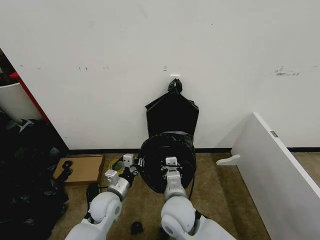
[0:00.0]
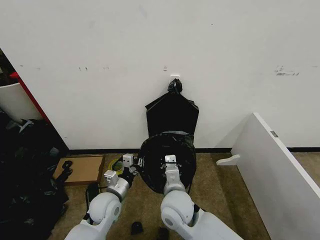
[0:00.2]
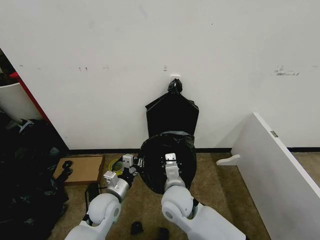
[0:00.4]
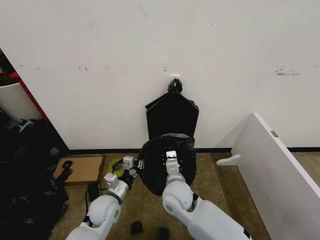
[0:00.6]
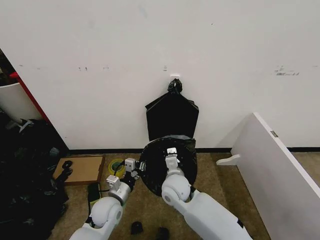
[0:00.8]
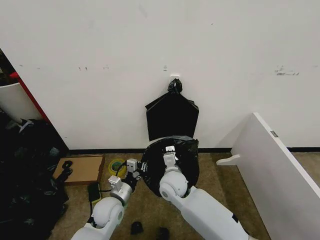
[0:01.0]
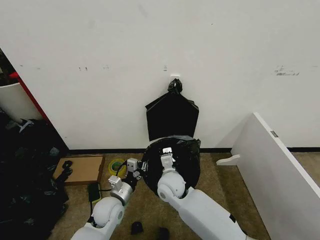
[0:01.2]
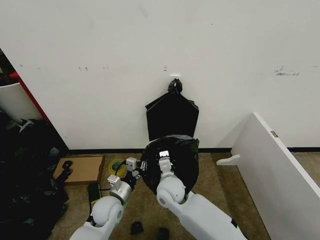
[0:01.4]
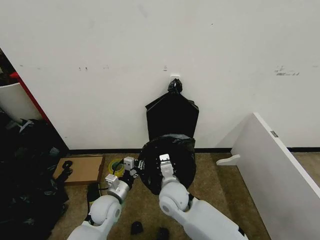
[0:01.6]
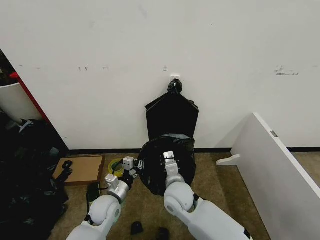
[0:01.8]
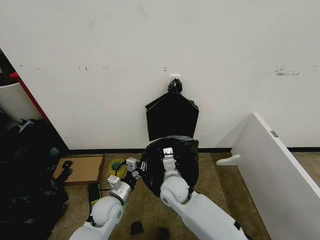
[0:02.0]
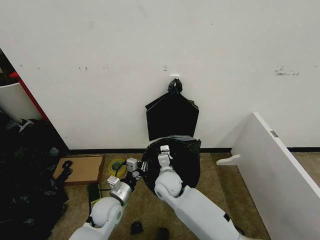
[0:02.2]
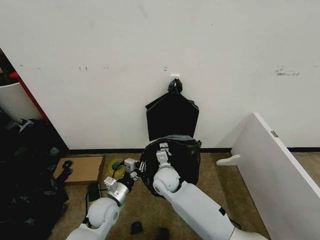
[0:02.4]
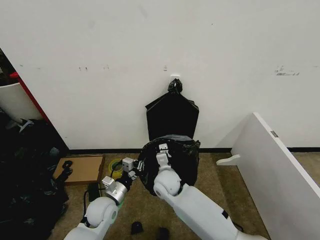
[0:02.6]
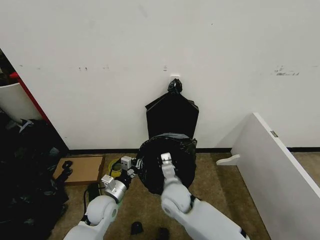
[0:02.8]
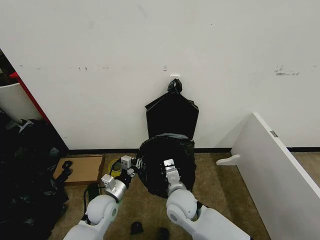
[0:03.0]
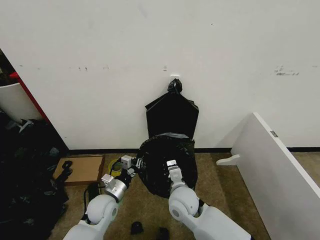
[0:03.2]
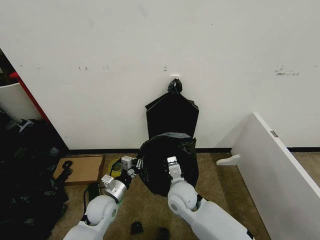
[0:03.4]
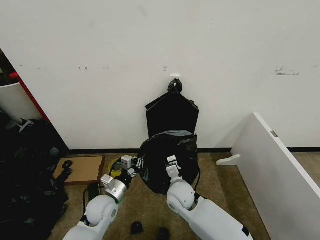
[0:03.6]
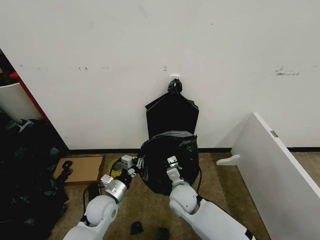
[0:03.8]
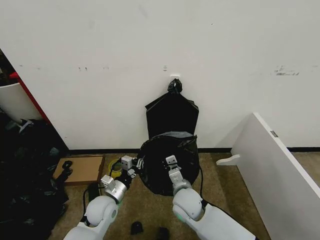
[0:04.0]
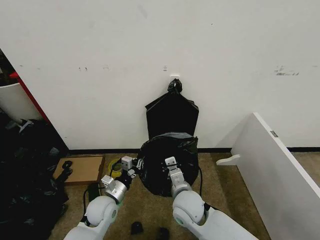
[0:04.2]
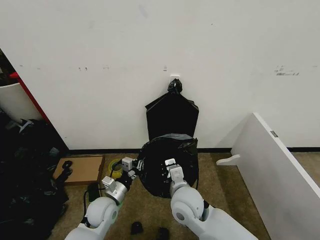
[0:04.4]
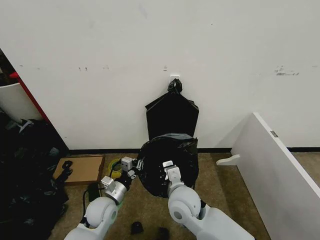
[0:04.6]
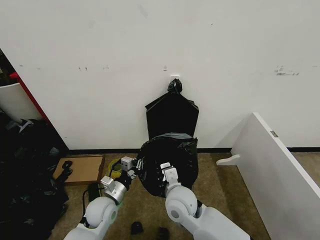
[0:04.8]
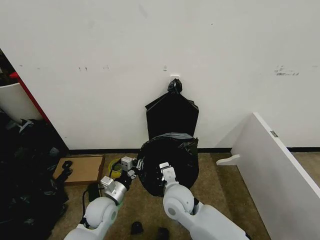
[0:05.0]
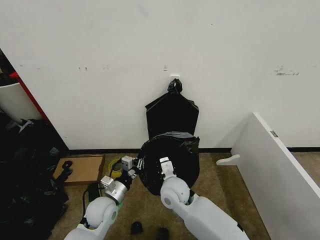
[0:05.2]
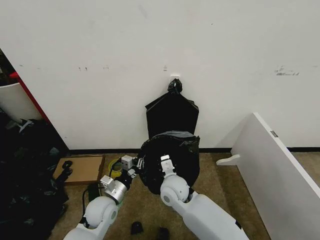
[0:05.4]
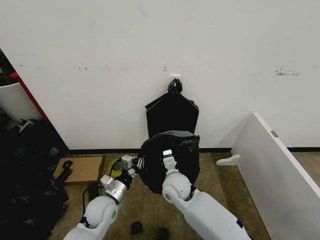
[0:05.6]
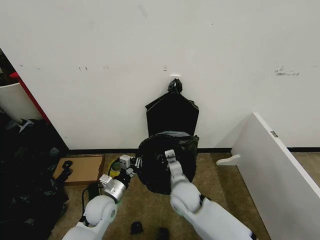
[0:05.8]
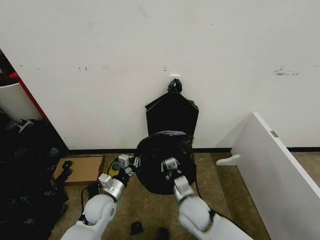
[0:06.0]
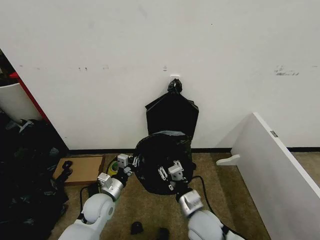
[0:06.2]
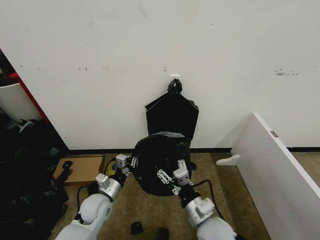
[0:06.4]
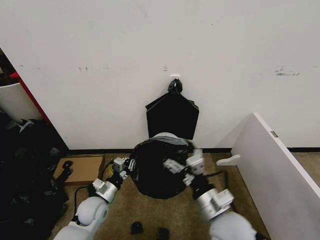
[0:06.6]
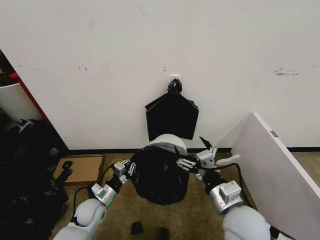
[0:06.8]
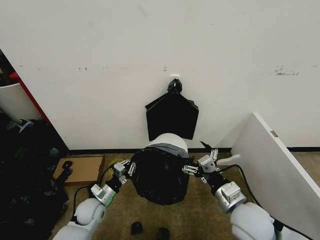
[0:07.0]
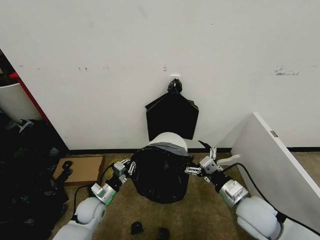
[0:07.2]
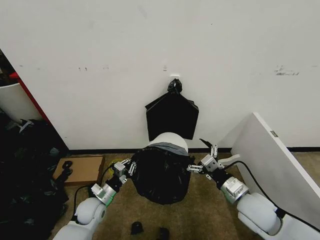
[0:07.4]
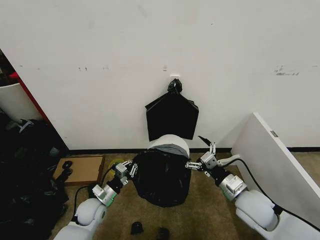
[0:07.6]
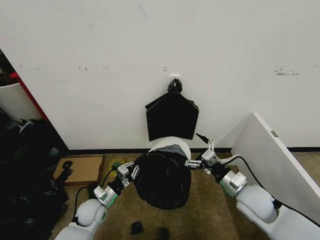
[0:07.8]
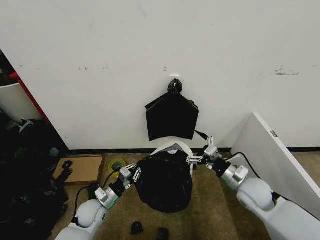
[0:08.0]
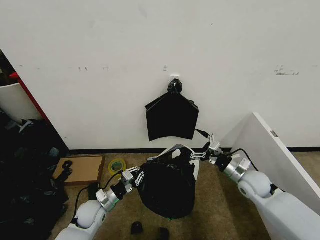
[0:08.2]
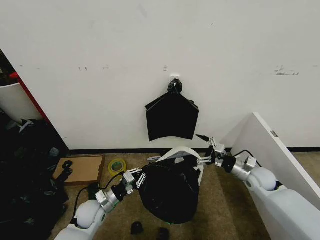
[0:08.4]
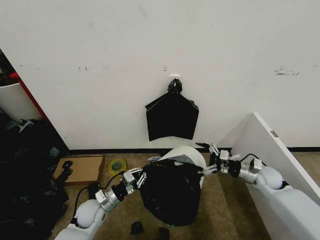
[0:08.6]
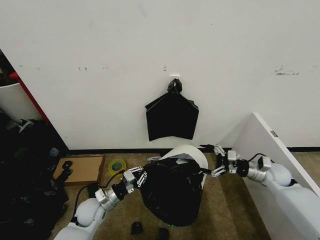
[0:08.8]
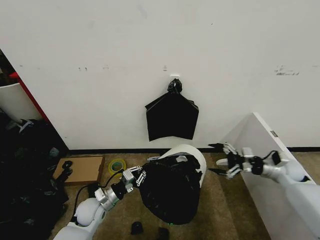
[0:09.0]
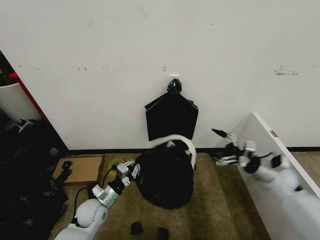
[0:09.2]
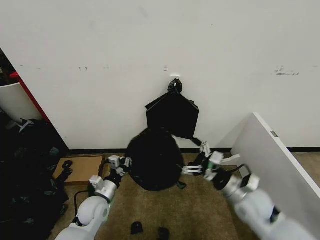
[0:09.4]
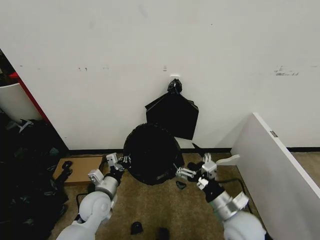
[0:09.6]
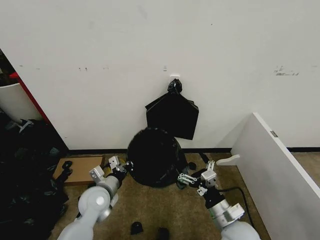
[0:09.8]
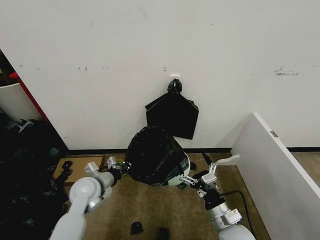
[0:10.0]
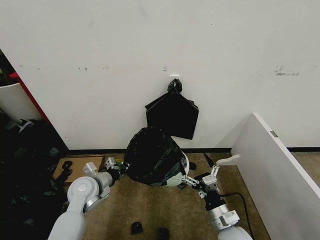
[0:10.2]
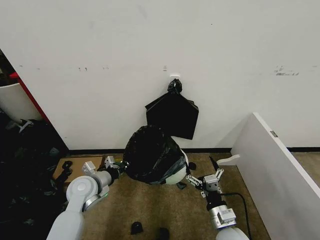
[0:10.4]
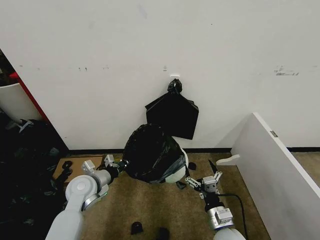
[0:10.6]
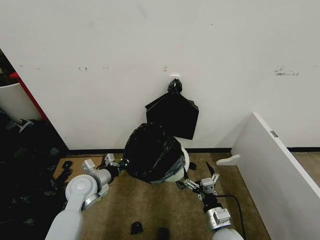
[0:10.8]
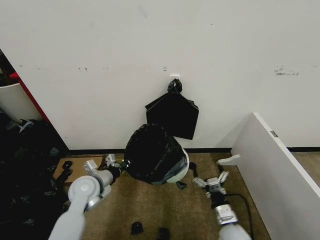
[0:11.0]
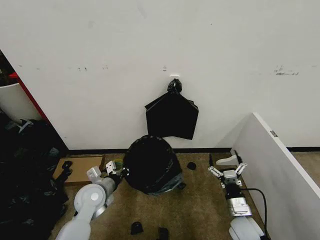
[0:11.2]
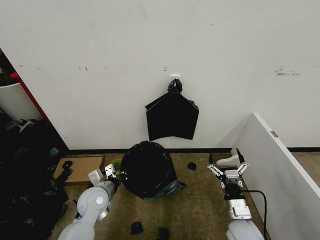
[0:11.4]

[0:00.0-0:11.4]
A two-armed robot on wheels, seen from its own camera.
Task of the whole recording: Place the garbage bag over the trash bin.
0:00.0 to 0:01.4: The right gripper shifts some 10 cm forward.
0:01.4 to 0:02.8: The right gripper travels forward and back again, some 5 cm each way.
0:02.8 to 0:04.2: The right gripper swings forward and backward, about 5 cm each way, with 2 reversals.
0:04.2 to 0:05.6: The right gripper travels forward by roughly 5 cm.
0:05.6 to 0:07.2: The right gripper heads to the right and backward, covering about 25 cm, and opens; the left gripper moves downward and to the left, roughly 10 cm.
0:07.2 to 0:08.6: The right gripper goes roughly 20 cm forward, to the right and downward.
0:08.6 to 0:10.0: The left gripper goes roughly 10 cm upward, while the right gripper moves backward and to the left, approximately 30 cm.
0:10.0 to 0:11.4: The left gripper moves about 5 cm.

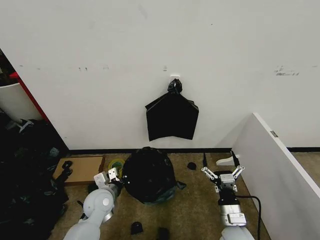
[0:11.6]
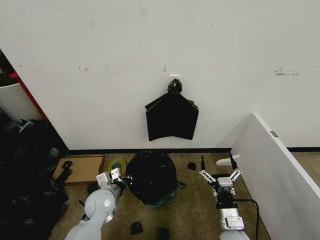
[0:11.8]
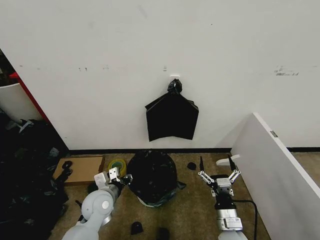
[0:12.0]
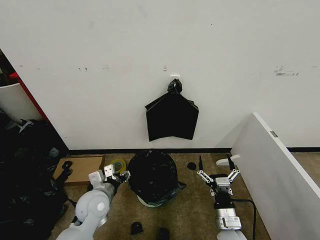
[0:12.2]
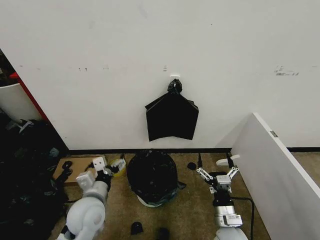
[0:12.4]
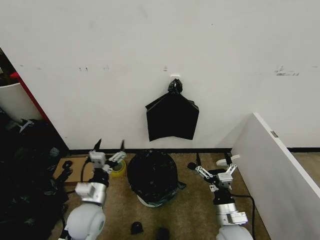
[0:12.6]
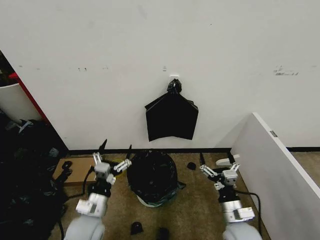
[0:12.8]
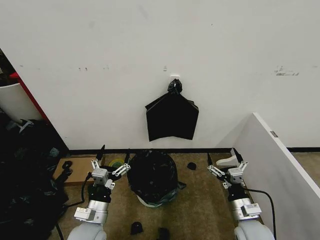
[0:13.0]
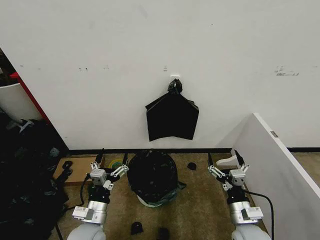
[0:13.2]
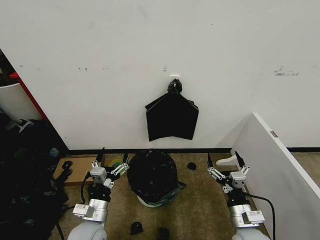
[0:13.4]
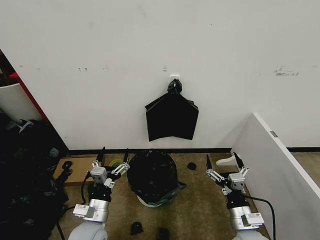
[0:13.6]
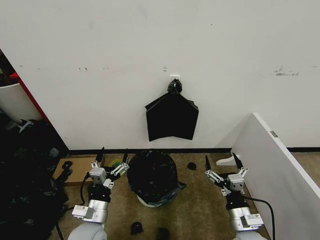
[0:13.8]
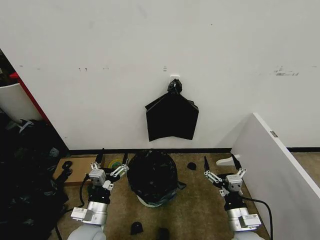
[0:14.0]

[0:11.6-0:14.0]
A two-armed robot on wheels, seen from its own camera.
Task of the whole recording: Place the garbage bag over the trash bin.
0:11.6 to 0:12.8: The left gripper heads backward, covering some 10 cm, and opens up.
0:12.8 to 0:14.0: The grippers make only small movements.

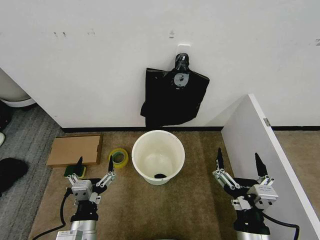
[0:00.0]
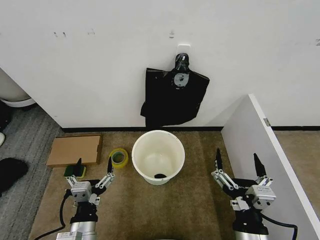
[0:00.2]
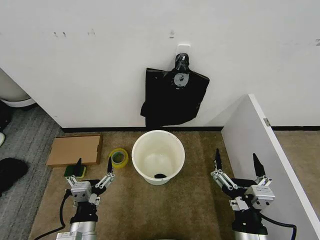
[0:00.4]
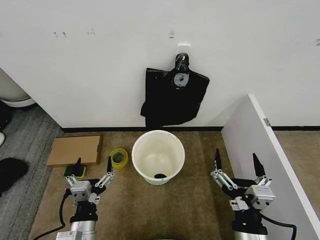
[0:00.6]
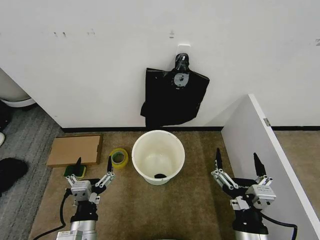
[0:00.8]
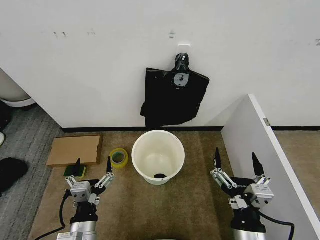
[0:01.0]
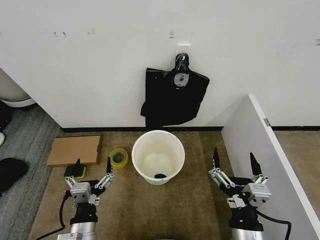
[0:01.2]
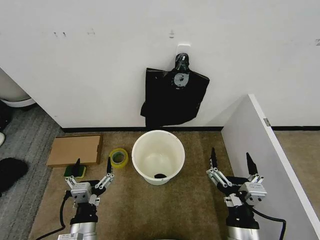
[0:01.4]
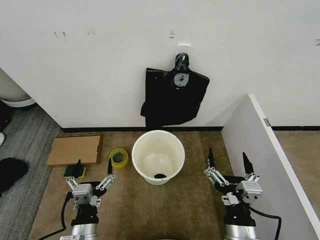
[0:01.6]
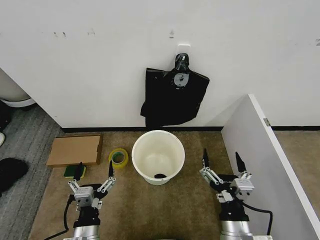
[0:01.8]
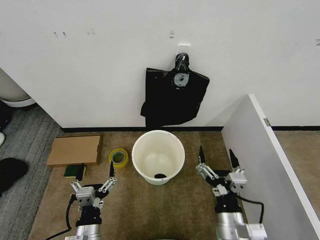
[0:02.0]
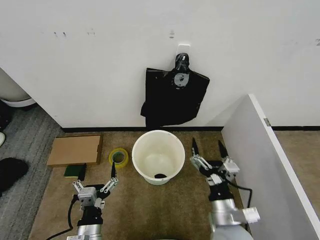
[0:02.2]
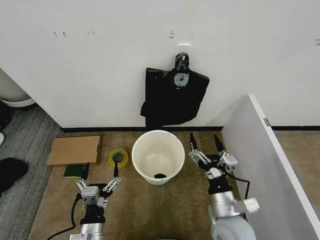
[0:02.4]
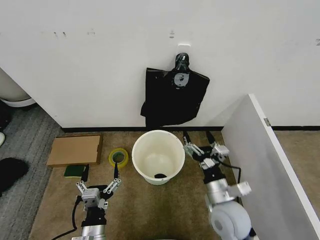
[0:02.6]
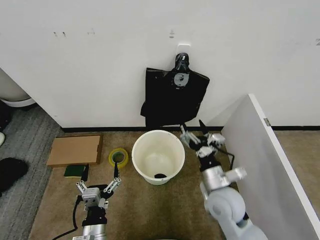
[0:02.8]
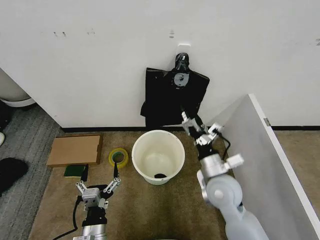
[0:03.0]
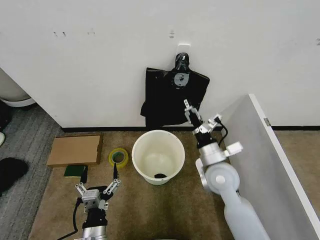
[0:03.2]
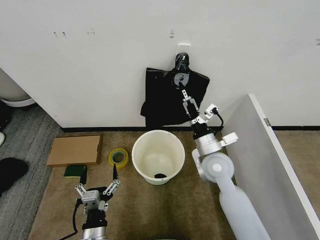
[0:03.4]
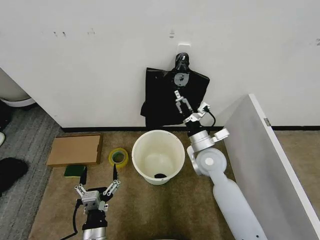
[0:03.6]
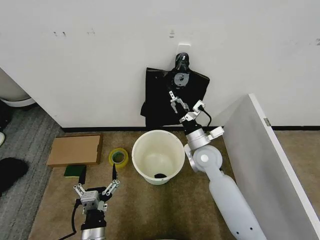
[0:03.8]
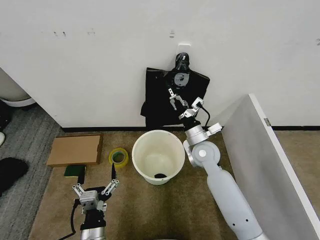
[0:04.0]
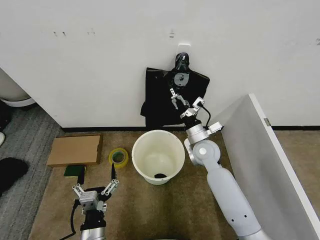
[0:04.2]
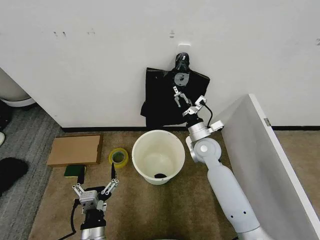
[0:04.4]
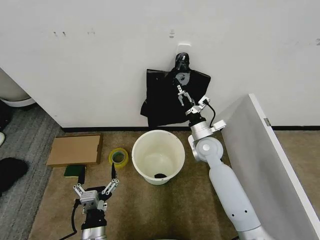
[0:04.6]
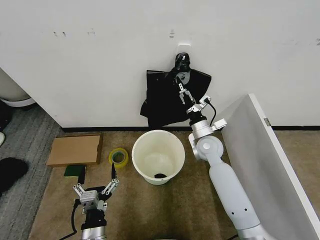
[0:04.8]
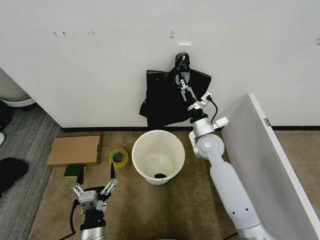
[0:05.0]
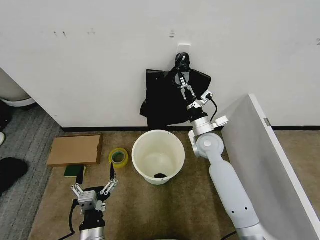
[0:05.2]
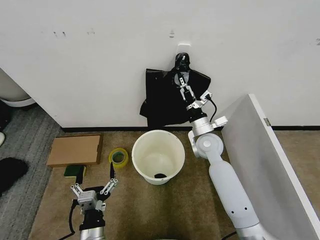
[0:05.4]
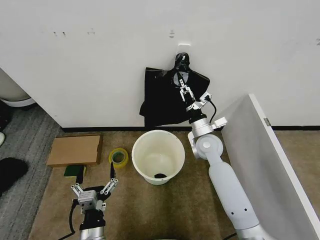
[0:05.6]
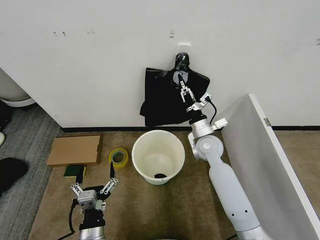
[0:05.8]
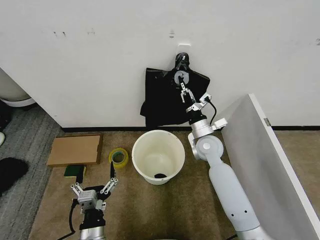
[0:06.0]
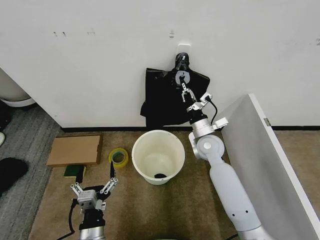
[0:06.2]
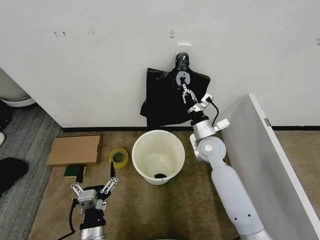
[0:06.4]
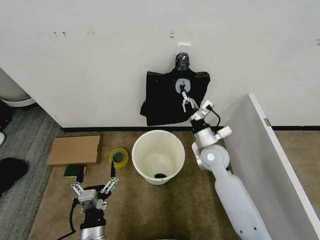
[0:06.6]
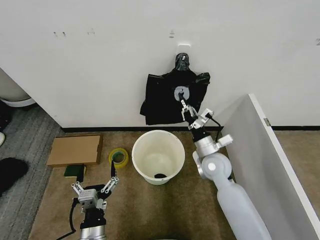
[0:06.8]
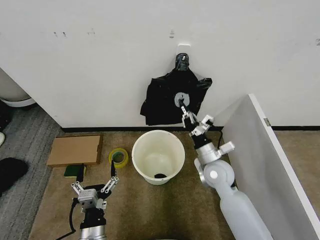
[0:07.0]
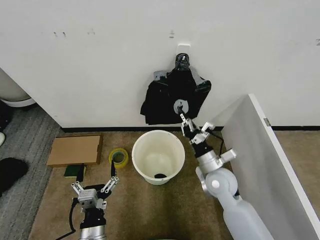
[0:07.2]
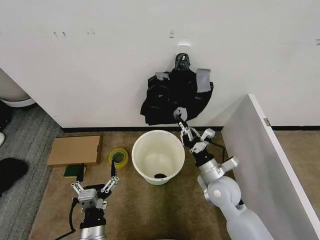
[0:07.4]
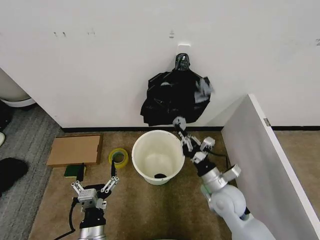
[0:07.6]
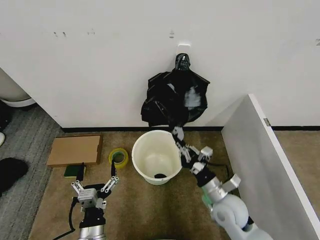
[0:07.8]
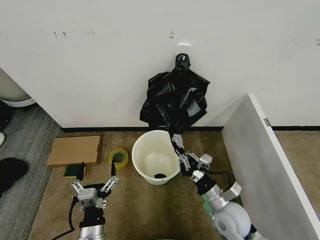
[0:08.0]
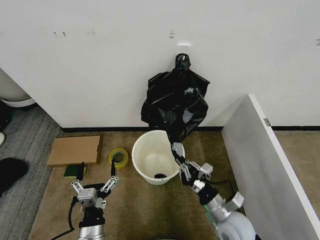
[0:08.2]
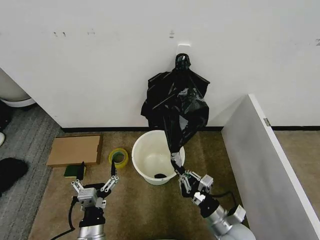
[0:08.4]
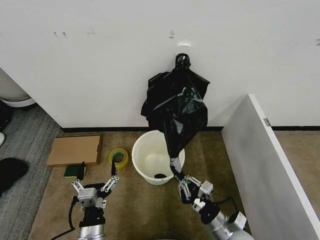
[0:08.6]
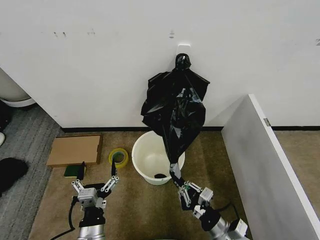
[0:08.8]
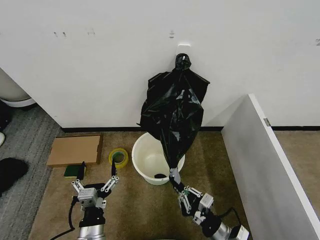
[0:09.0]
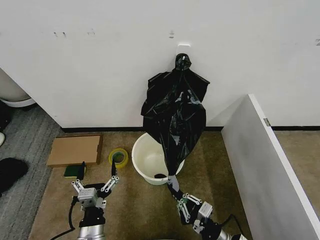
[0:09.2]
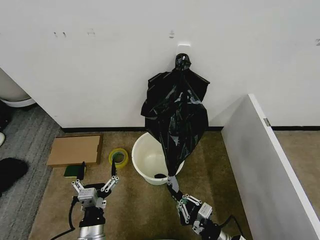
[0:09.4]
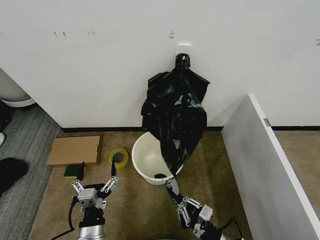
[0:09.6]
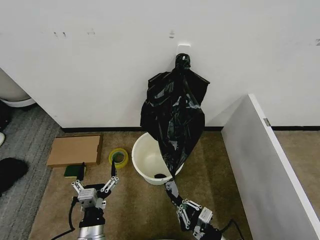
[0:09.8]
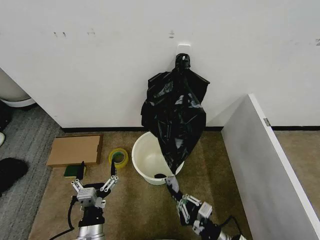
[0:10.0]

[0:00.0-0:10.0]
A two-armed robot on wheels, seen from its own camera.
Task of the whole recording: Place the garbage bag over the trash bin.
0:01.4 to 0:02.8: The right gripper moves forward, some 15 cm.
0:02.8 to 0:04.2: The right gripper travels forward by roughly 15 cm.
0:04.2 to 0:05.8: The right gripper closes.
0:05.8 to 0:07.2: The right gripper goes some 10 cm backward.
0:07.2 to 0:08.6: The right gripper travels backward and downward by roughly 15 cm.
0:08.6 to 0:10.0: The right gripper moves approximately 5 cm.
